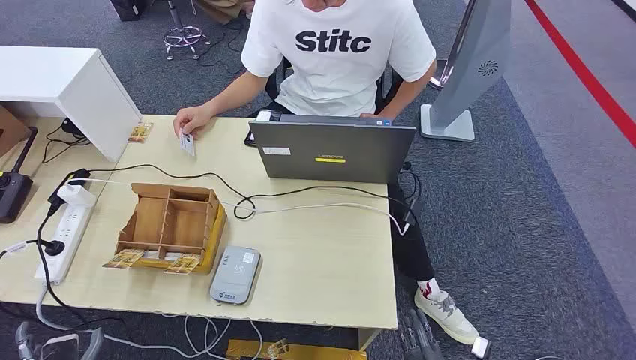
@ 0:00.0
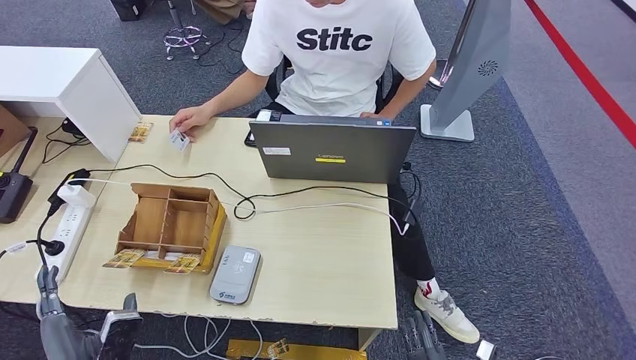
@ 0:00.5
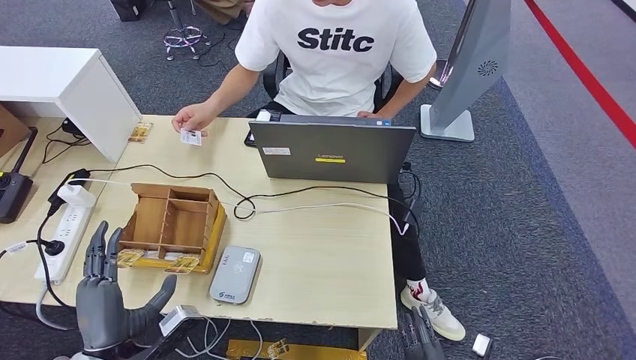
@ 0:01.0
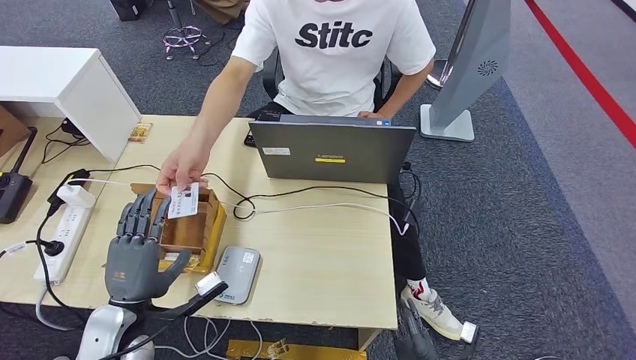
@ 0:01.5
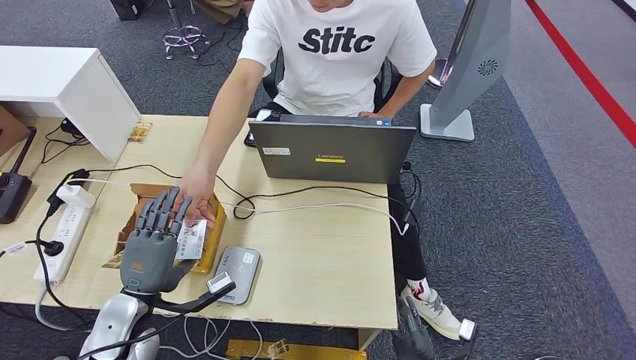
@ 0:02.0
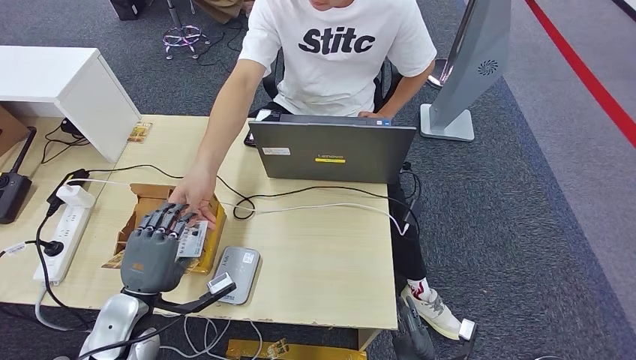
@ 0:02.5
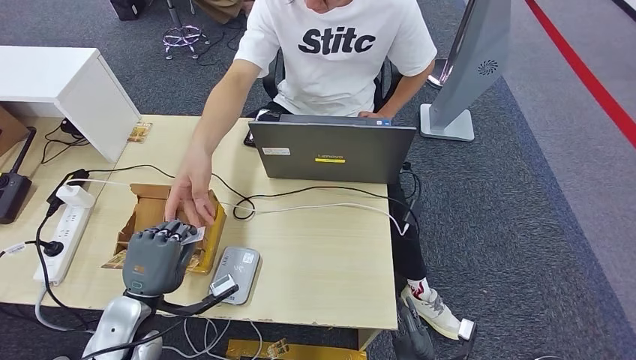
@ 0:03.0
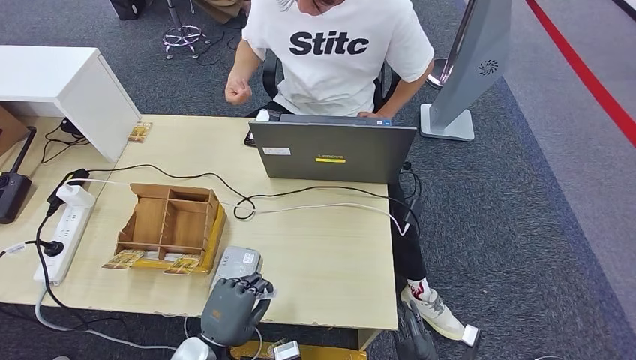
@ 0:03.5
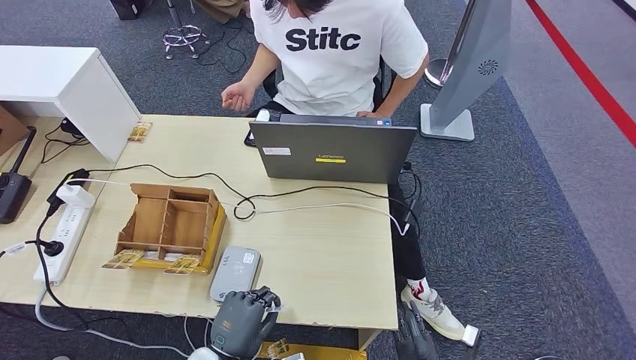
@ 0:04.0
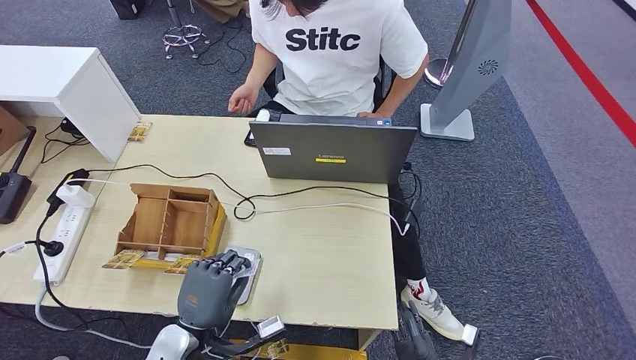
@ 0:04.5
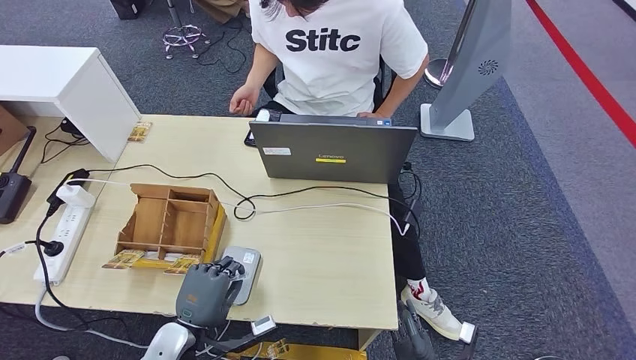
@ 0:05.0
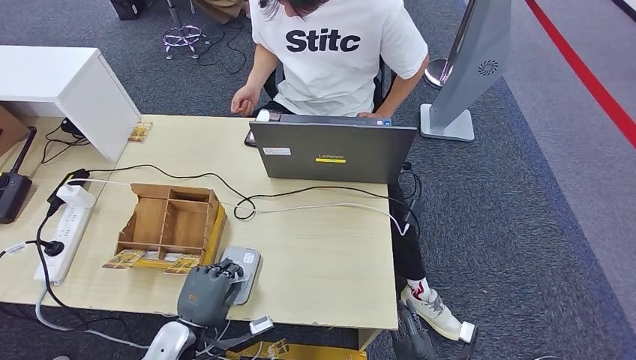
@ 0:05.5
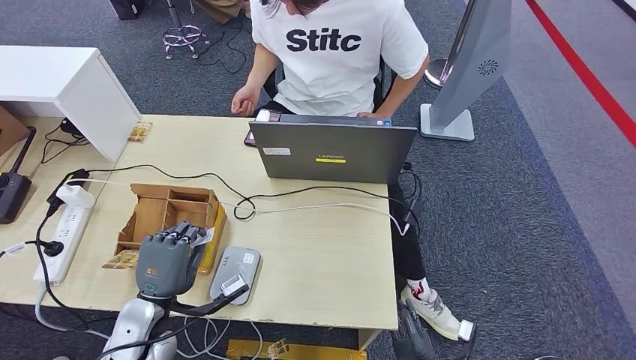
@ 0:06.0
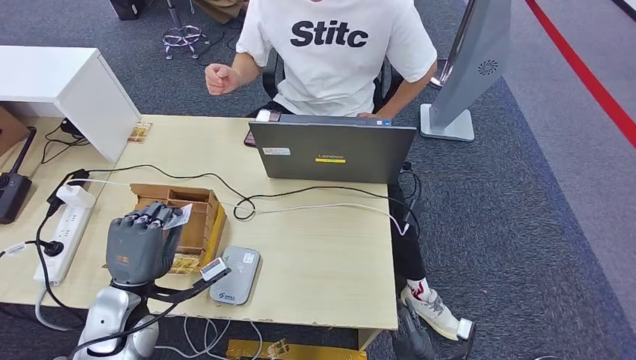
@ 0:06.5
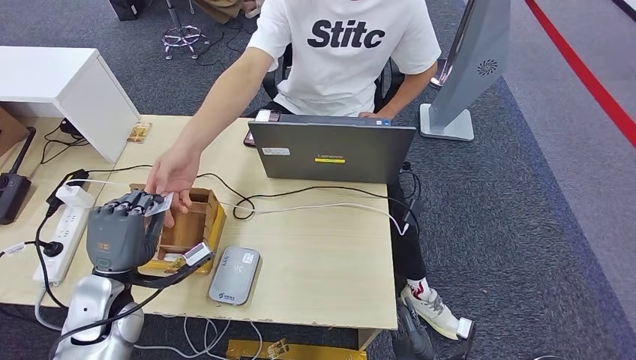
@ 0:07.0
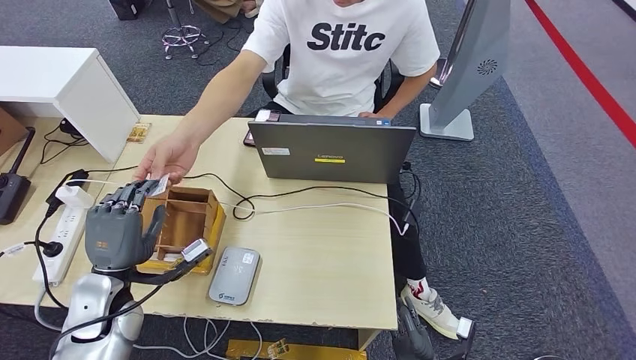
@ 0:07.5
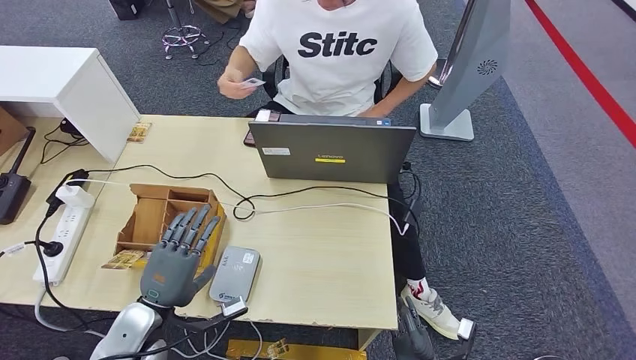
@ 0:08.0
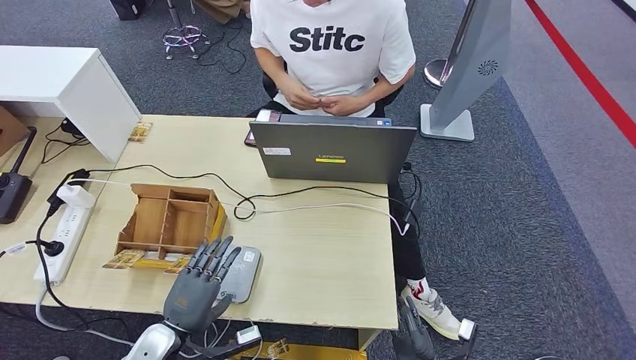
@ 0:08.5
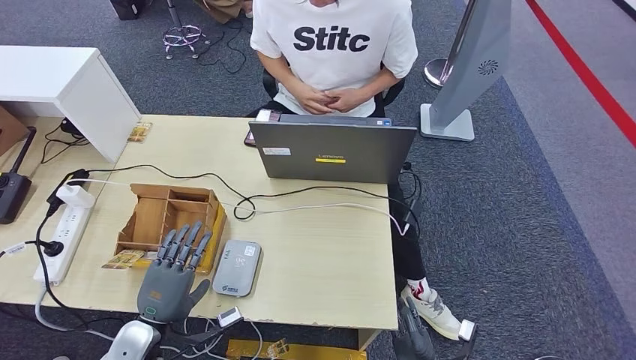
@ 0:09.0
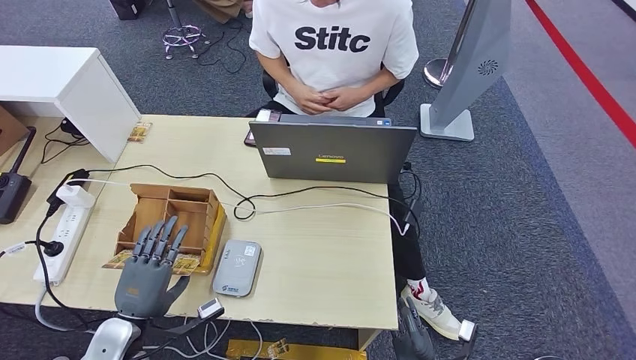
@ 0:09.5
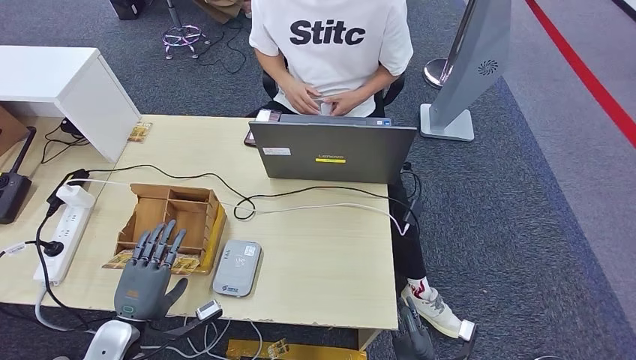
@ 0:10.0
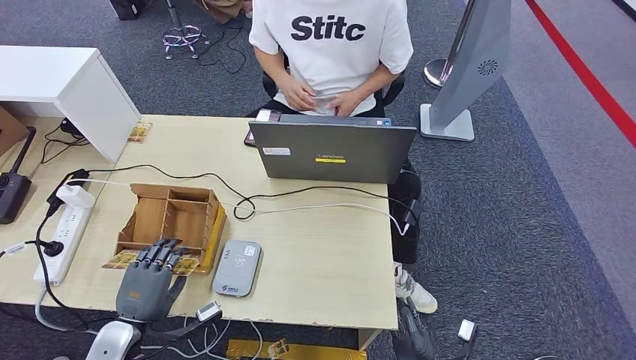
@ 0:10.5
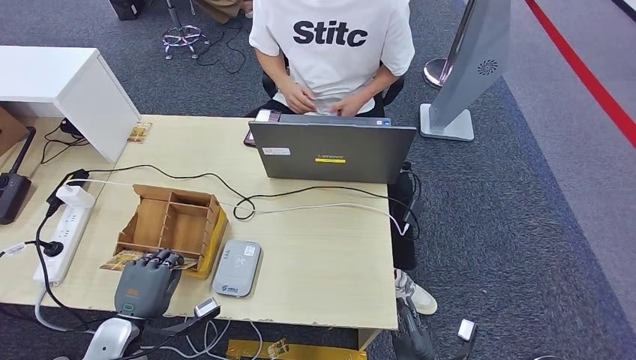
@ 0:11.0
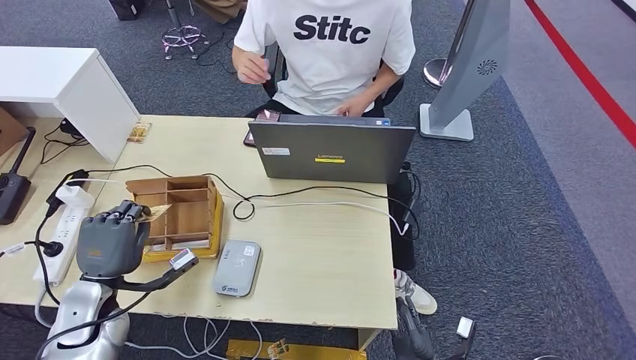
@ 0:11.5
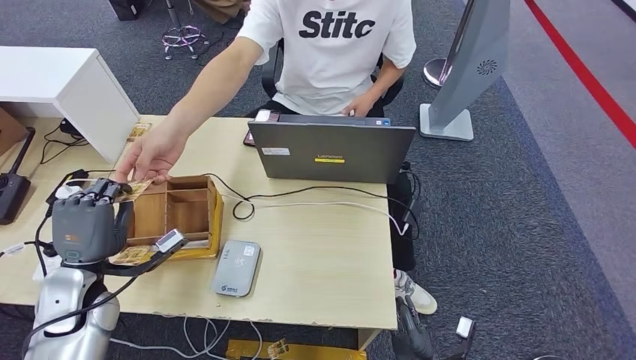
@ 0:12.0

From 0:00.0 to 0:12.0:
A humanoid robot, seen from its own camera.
Step, from 0:00.0 to 0:02.5: Take the ID card from the person's hand.
Step, from 0:03.5 to 0:05.0: Place the ID card on the card reader.
Step, from 0:06.5 to 0:07.5: Hand the ID card to the person.
Step, from 0:10.5 to 0:11.5: Pick up the room key from the key card box.
From 0:02.0 to 0:04.0: The left hand goes some 15 cm to the right, backward and downward.
From 0:04.0 to 0:06.0: The left hand goes roughly 15 cm forward, to the left and upward.
From 0:08.0 to 0:10.0: The left hand moves about 5 cm.
From 0:10.0 to 0:12.0: The left hand moves upward and forward, approximately 15 cm.
